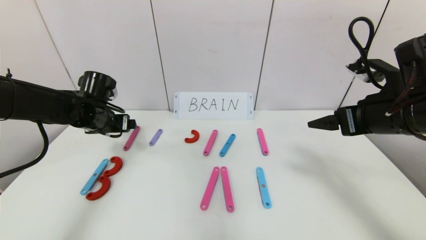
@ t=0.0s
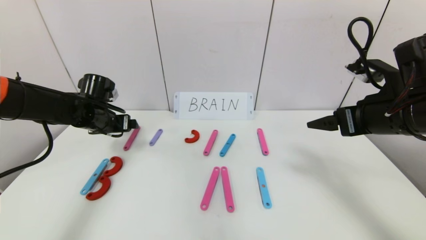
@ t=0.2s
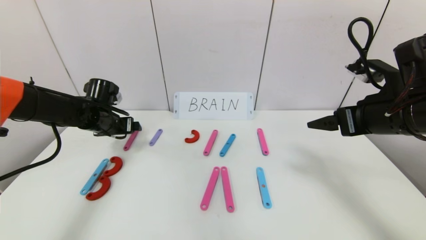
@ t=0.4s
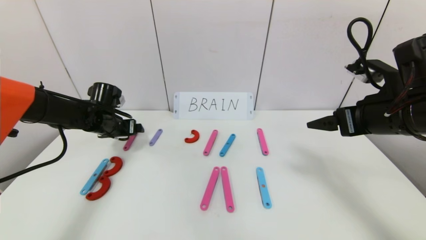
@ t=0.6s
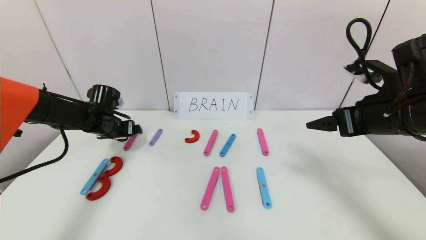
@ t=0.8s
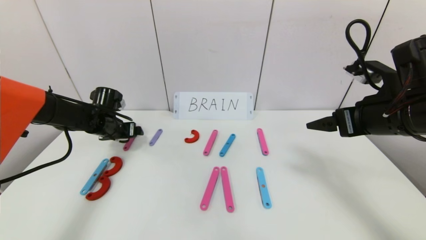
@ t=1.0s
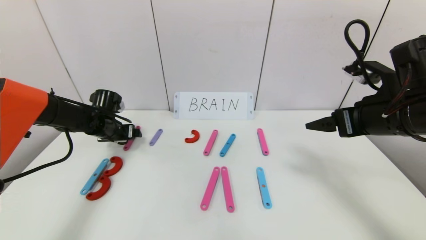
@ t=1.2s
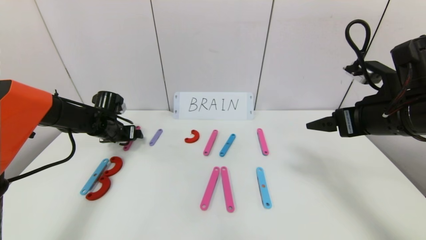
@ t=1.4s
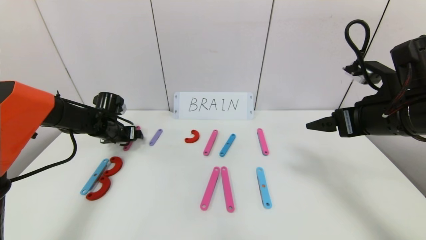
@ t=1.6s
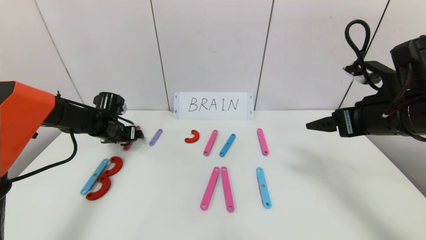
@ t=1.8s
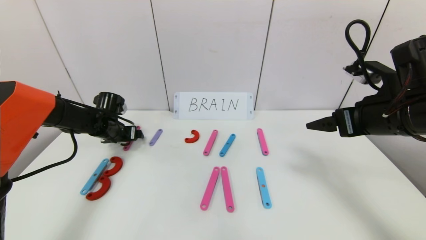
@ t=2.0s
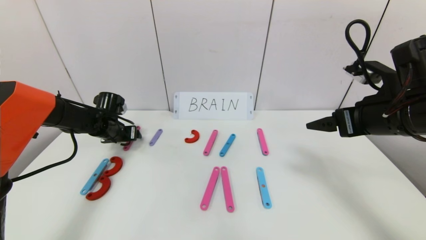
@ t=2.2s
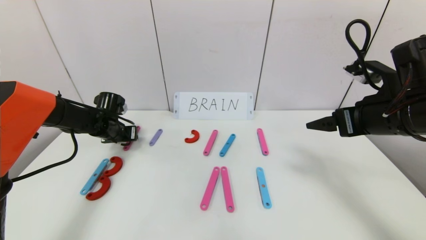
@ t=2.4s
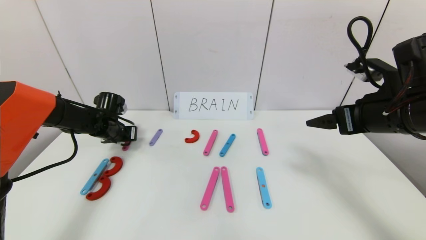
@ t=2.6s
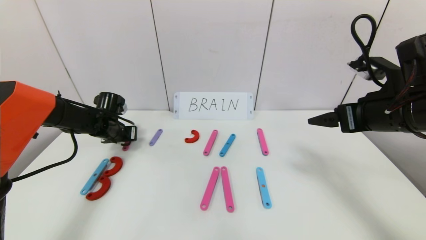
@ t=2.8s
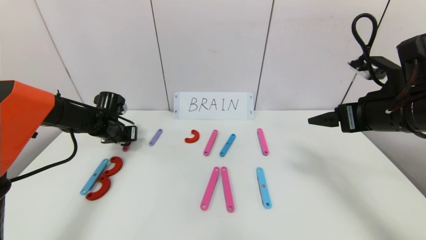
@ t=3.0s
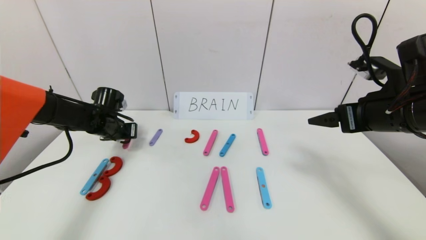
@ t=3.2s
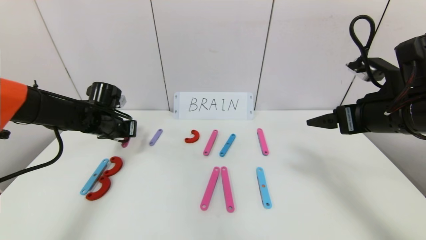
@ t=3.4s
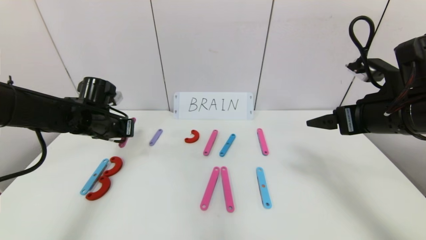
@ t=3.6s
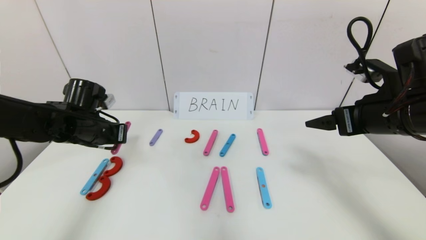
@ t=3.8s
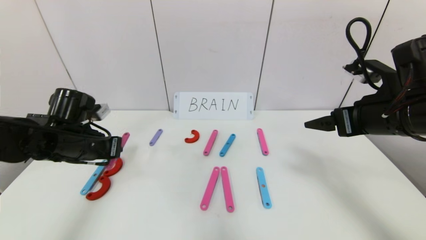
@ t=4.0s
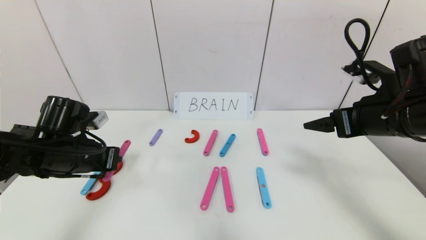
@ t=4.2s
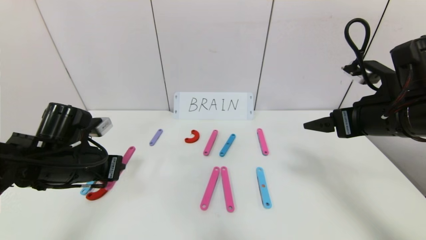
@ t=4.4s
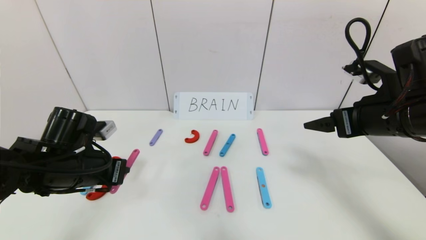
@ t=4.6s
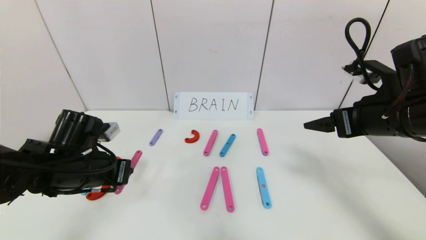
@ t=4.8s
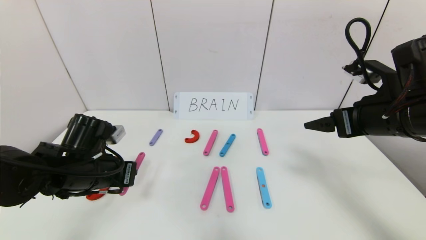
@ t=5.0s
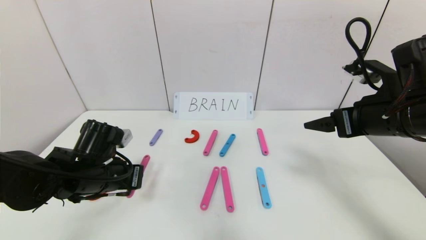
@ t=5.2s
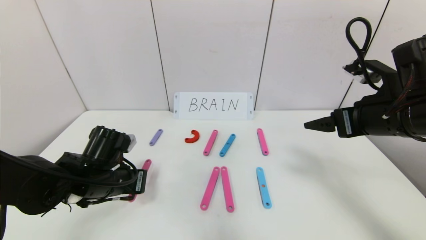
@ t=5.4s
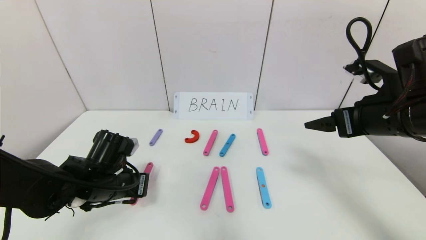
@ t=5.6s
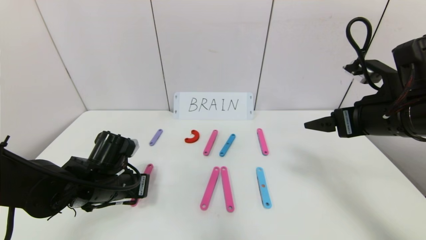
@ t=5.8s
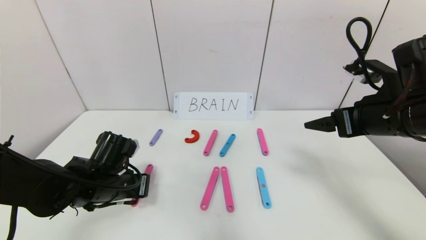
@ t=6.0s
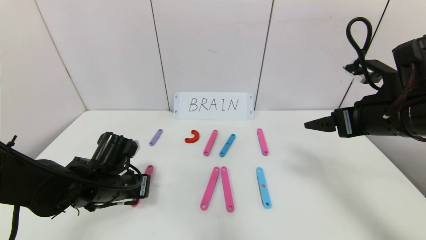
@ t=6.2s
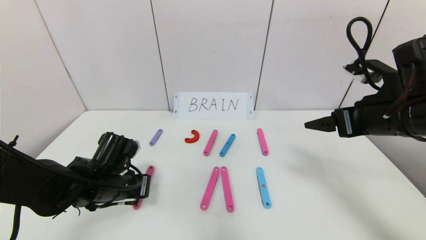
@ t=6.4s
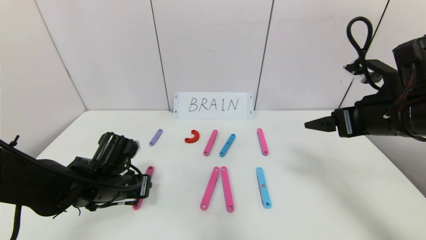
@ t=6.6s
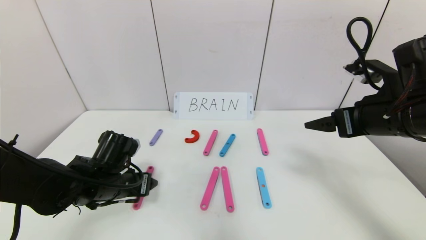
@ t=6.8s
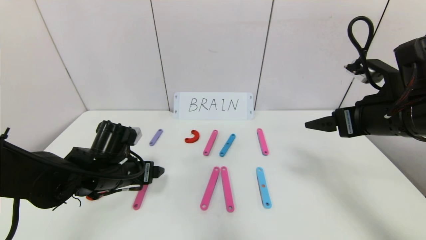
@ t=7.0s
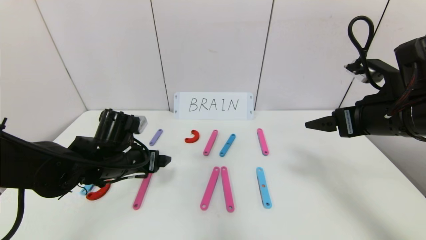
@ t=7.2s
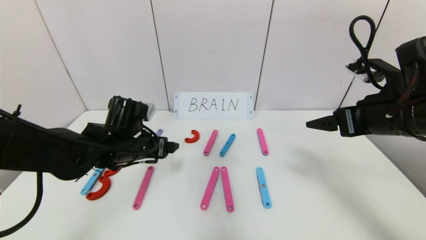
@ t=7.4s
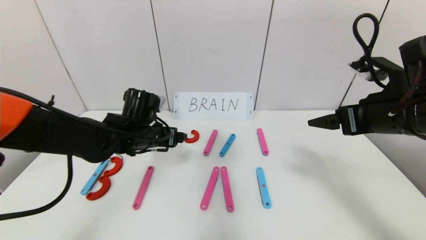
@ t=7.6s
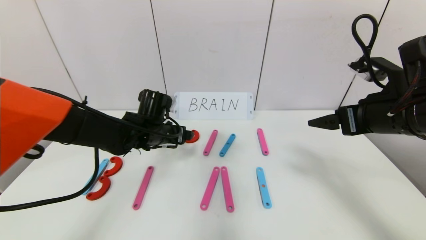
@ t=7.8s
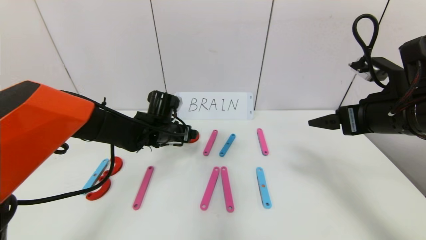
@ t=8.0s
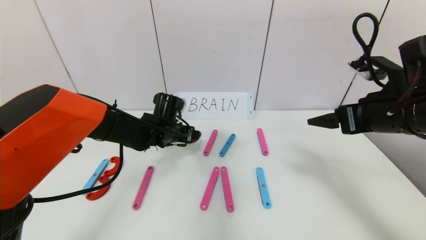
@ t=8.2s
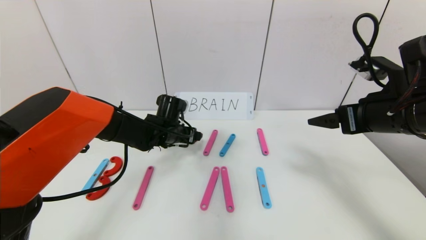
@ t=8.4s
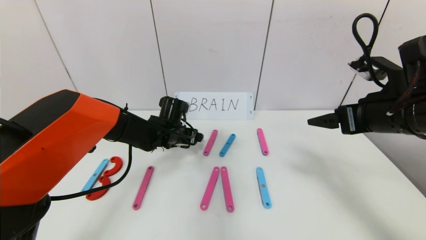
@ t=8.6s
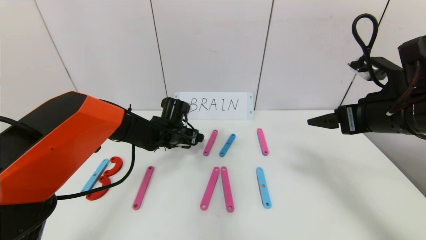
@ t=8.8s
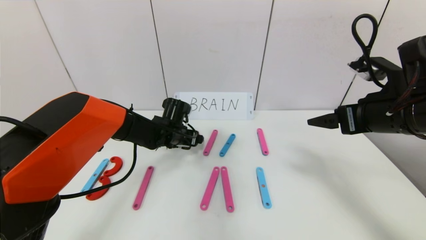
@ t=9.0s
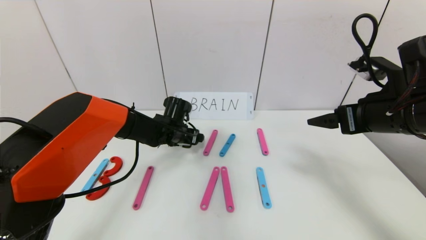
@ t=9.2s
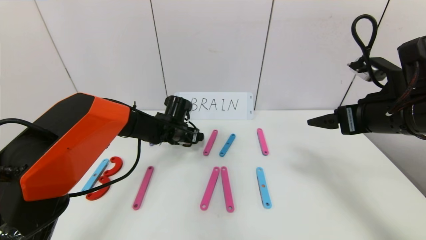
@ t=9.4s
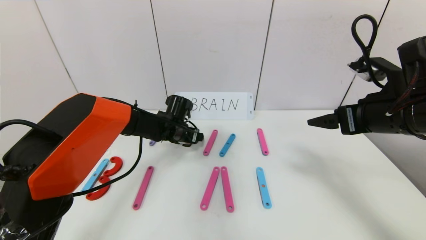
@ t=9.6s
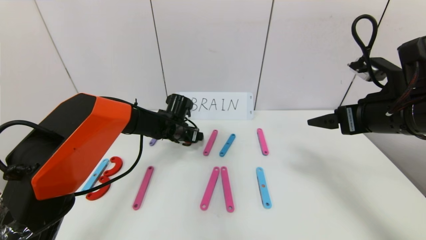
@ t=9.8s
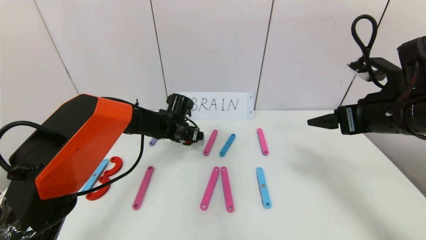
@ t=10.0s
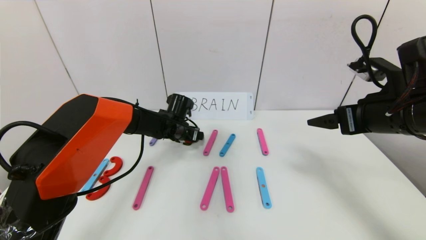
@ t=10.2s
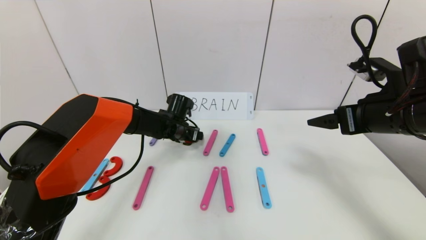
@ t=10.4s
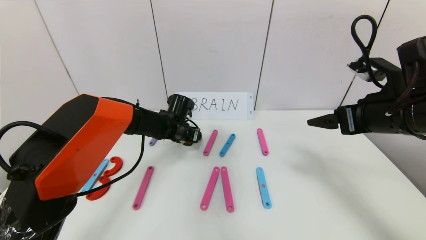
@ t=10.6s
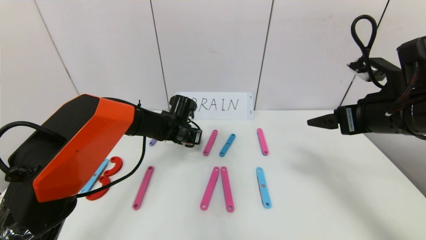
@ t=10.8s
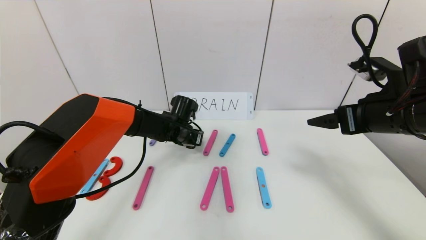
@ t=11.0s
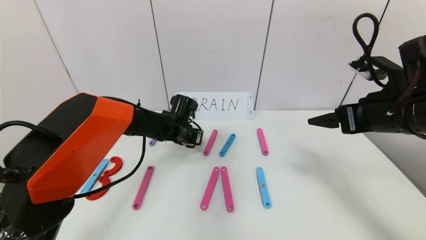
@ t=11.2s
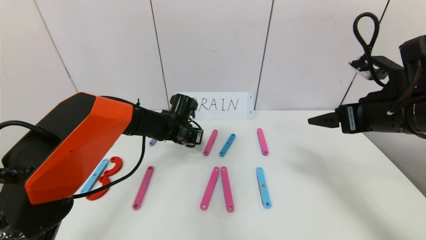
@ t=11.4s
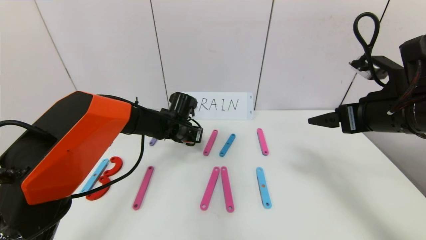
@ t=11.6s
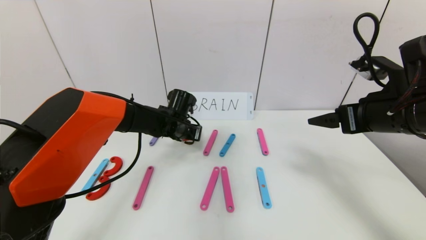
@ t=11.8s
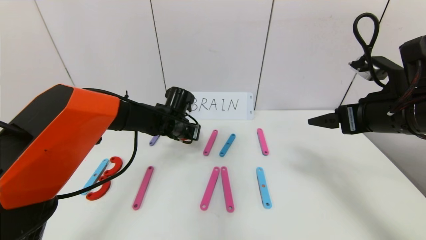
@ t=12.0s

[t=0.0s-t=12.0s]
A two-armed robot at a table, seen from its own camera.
Task of the whole recording: rearrange the word baai as brain.
t=0.0s to t=1.6s: The left gripper goes roughly 10 cm downward and forward.
t=1.6s to t=3.0s: The left gripper closes up.
t=3.0s to t=4.4s: The left gripper is displaced backward by about 20 cm.
t=4.4s to t=6.0s: The left gripper heads downward, covering about 5 cm.
t=6.0s to t=7.6s: The left gripper heads forward and upward, covering roughly 10 cm, and opens up.
t=7.6s to t=9.0s: The left gripper moves forward and downward, some 10 cm.
t=9.0s to t=10.4s: The grippers stay close to where they were, moving slightly.
t=10.4s to t=12.0s: The left gripper closes up.

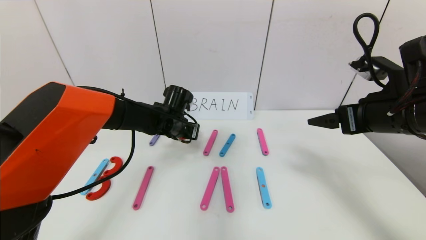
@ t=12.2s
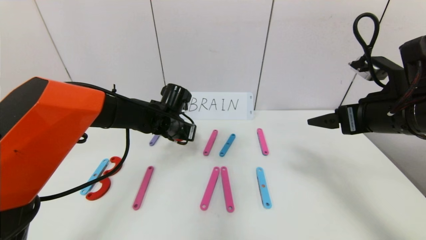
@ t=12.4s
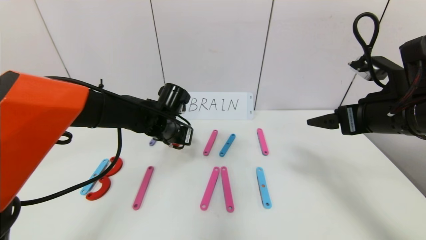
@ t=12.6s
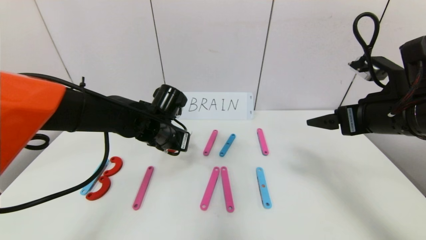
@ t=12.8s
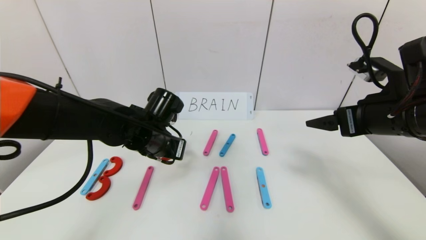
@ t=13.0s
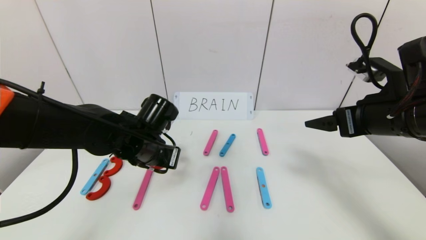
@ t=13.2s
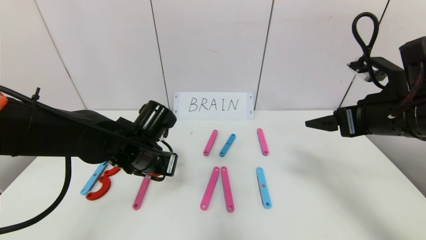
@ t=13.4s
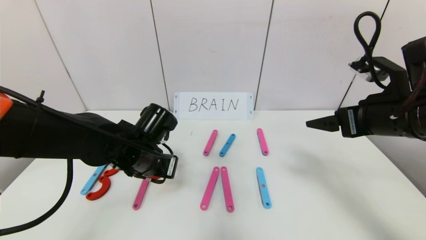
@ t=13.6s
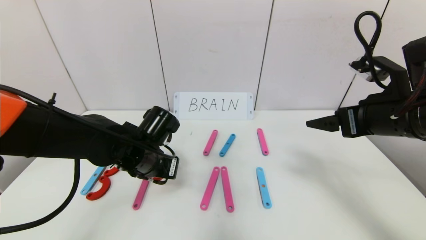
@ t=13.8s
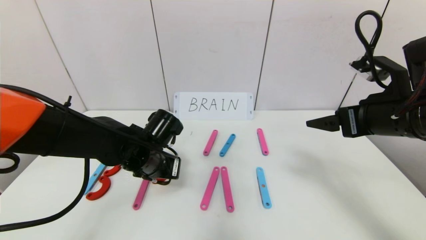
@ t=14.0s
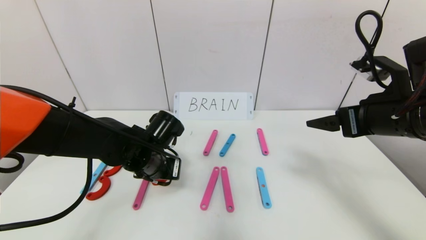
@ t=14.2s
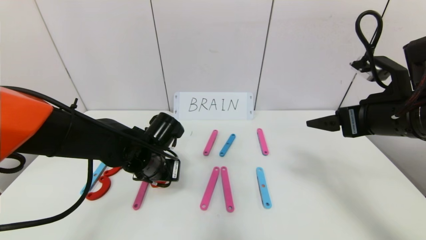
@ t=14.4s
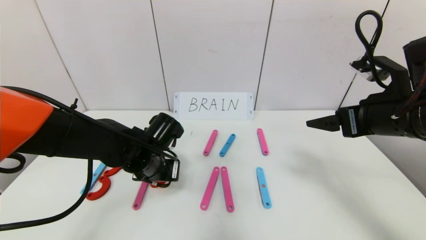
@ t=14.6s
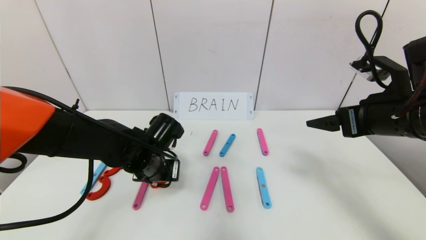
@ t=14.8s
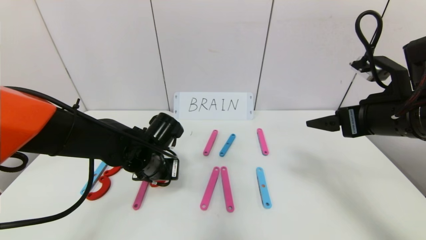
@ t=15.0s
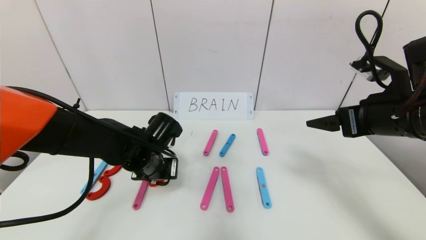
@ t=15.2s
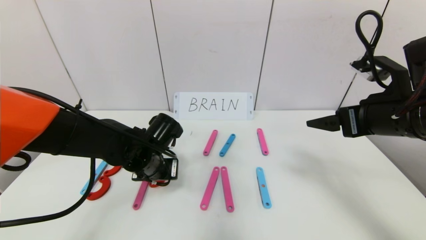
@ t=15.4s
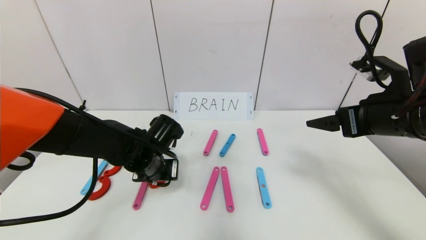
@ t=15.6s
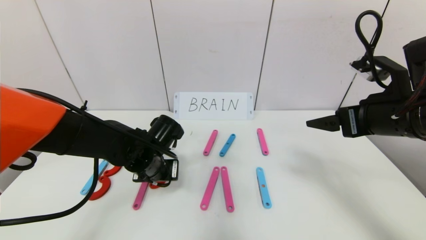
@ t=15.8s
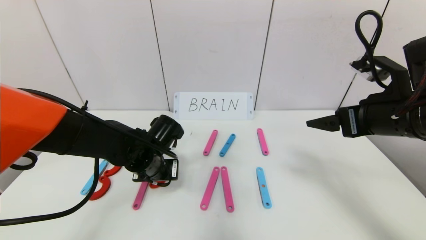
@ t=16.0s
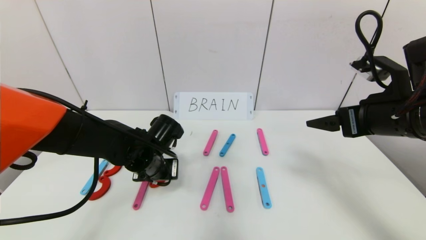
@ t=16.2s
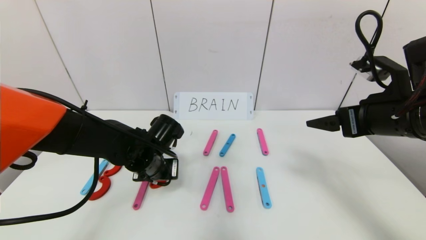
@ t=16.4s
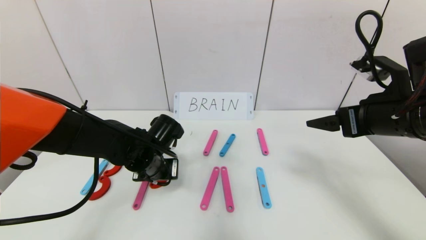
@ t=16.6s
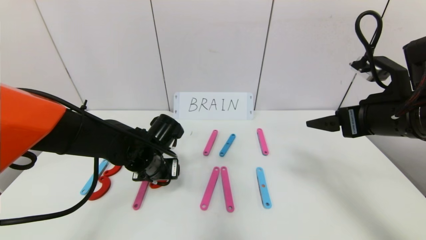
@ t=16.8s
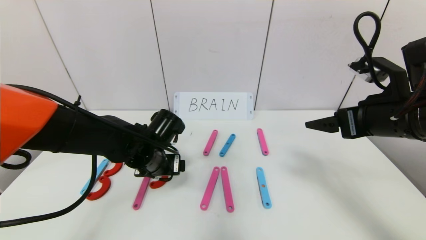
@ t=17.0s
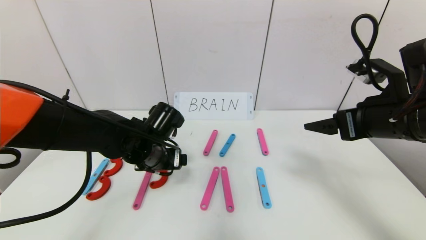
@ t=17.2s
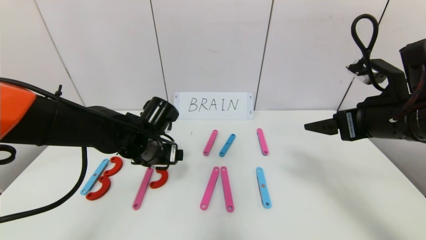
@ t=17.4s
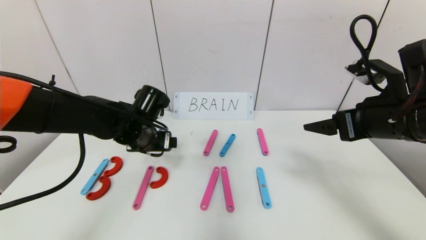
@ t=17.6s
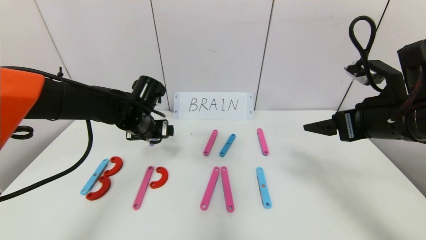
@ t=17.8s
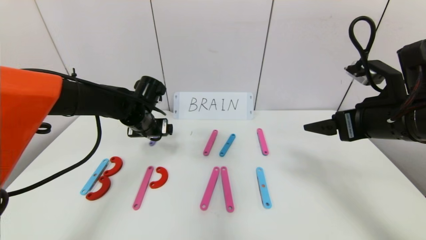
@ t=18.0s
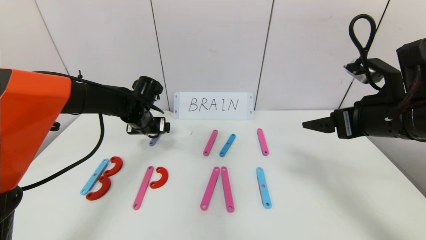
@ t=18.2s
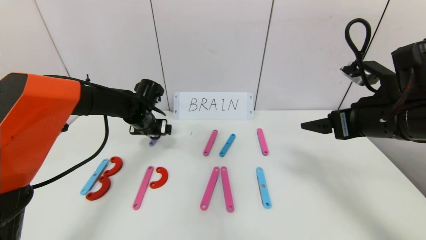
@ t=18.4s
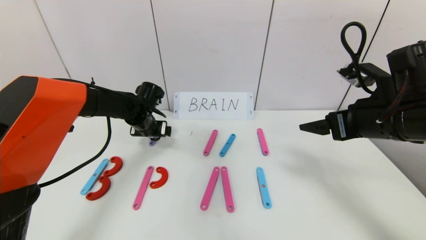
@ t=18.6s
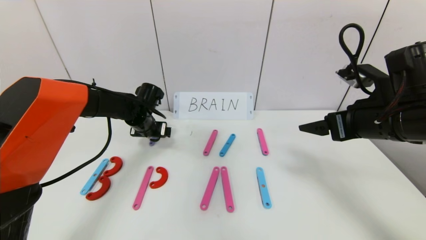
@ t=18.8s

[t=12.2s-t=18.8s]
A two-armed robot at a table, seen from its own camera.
Task of the whole recording: rearrange the word baai as brain.
t=12.2s to t=13.8s: The left gripper travels backward by approximately 10 cm.
t=13.8s to t=15.4s: There are only small adjustments of the grippers.
t=15.4s to t=17.2s: The left gripper opens its fingers.
t=17.2s to t=18.8s: The left gripper shifts roughly 15 cm forward and to the left.
